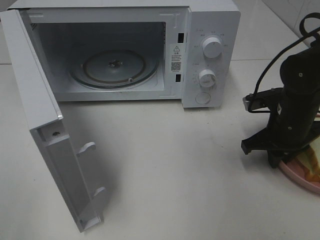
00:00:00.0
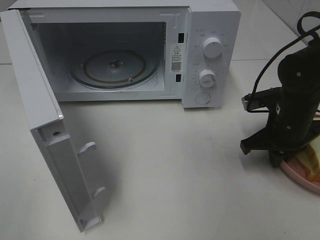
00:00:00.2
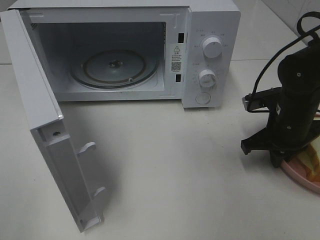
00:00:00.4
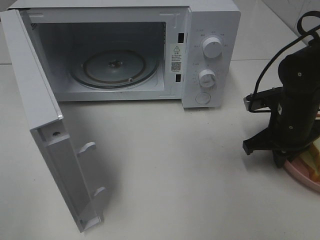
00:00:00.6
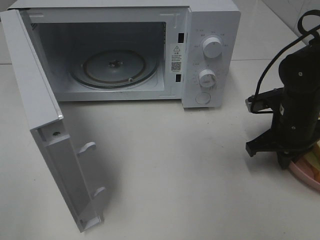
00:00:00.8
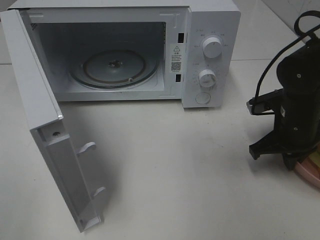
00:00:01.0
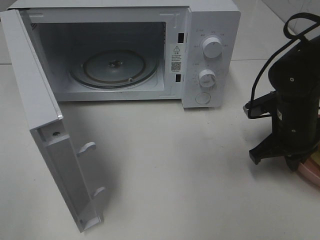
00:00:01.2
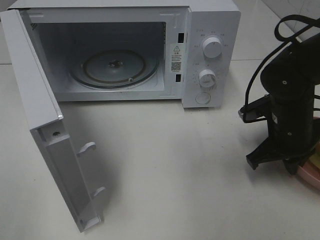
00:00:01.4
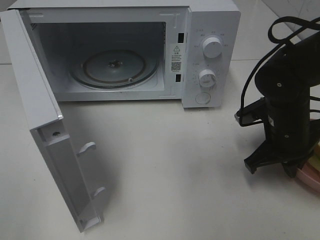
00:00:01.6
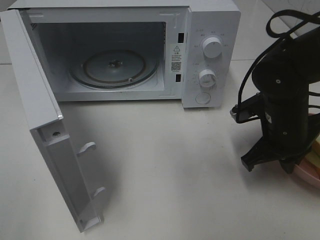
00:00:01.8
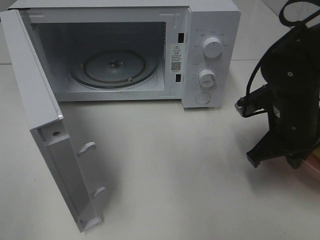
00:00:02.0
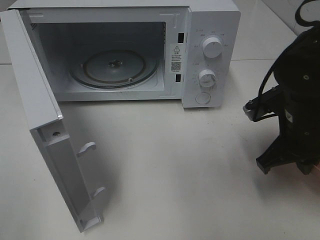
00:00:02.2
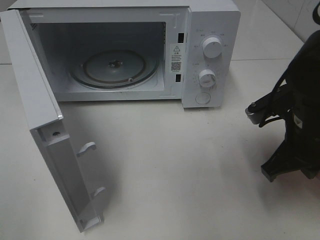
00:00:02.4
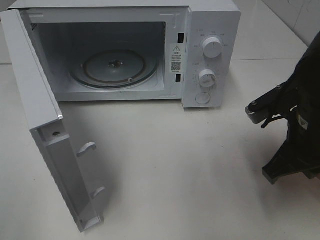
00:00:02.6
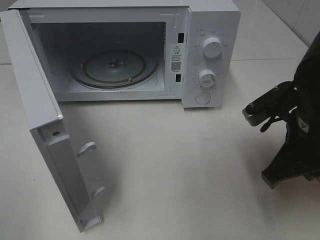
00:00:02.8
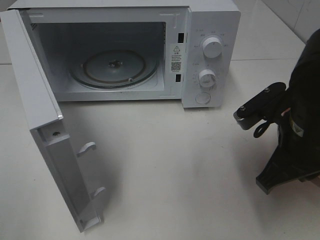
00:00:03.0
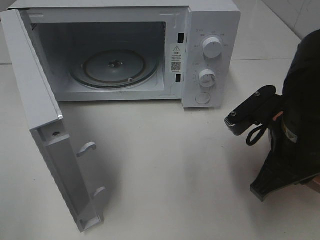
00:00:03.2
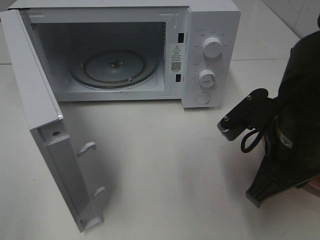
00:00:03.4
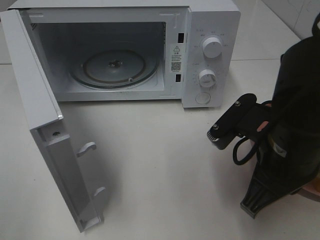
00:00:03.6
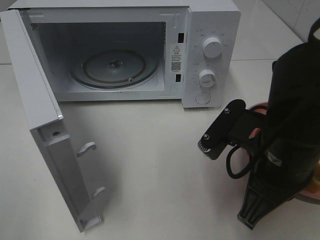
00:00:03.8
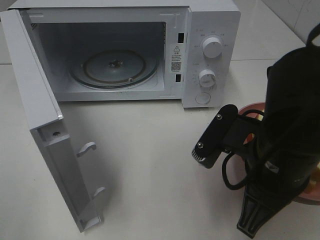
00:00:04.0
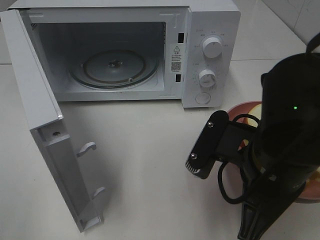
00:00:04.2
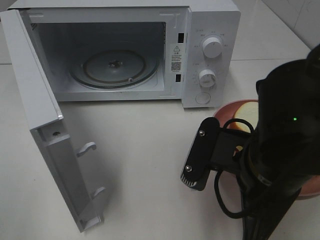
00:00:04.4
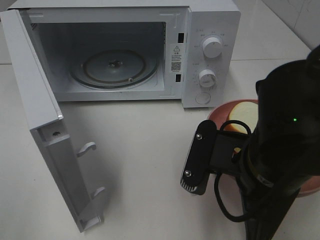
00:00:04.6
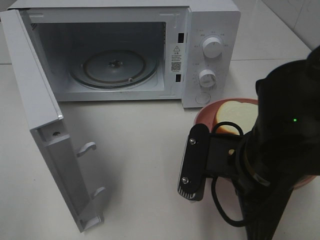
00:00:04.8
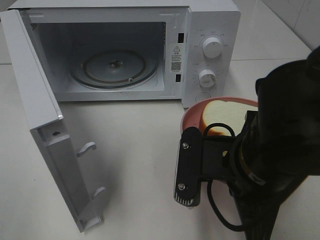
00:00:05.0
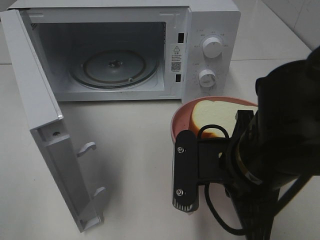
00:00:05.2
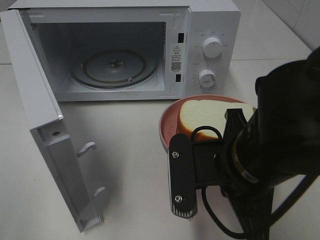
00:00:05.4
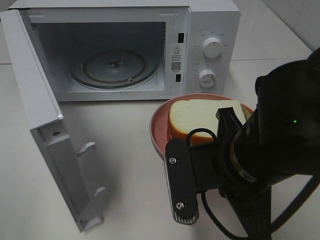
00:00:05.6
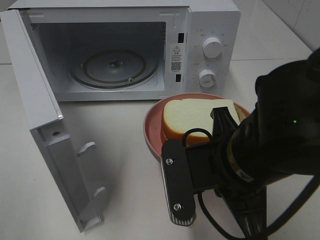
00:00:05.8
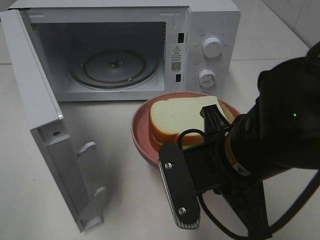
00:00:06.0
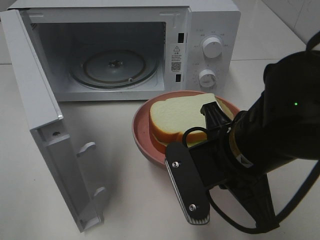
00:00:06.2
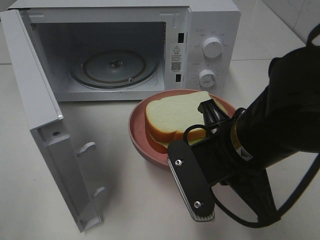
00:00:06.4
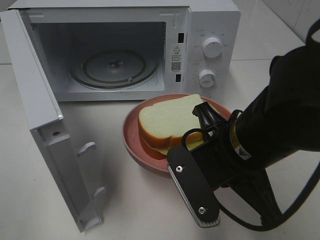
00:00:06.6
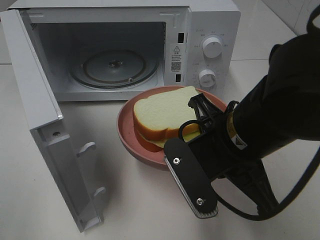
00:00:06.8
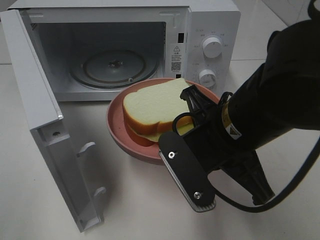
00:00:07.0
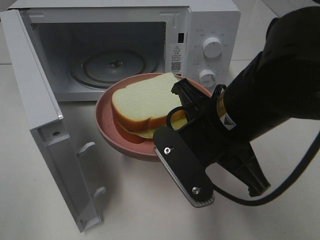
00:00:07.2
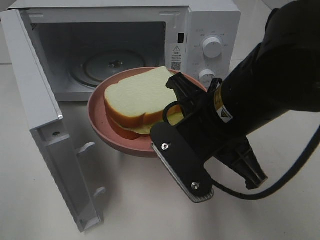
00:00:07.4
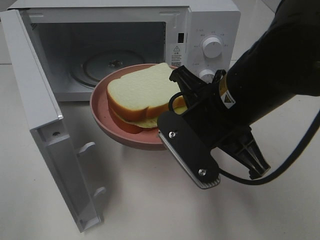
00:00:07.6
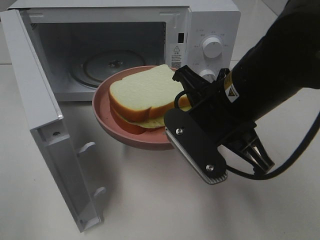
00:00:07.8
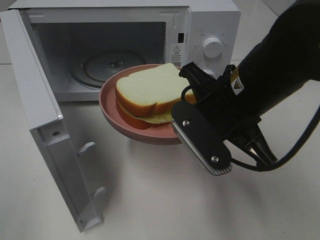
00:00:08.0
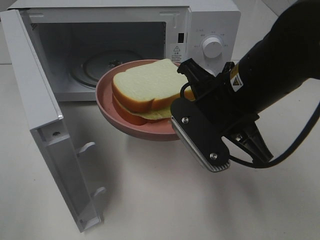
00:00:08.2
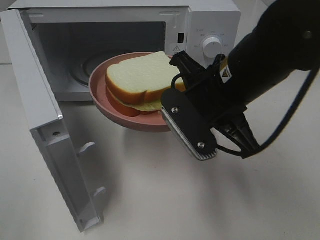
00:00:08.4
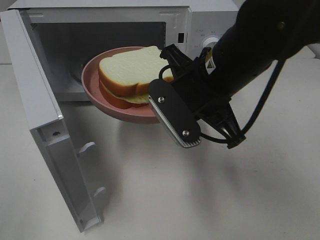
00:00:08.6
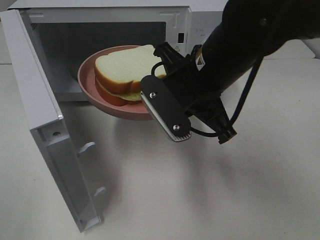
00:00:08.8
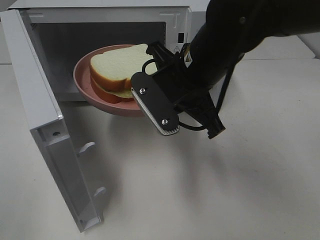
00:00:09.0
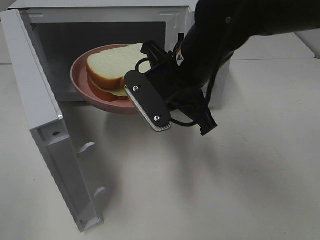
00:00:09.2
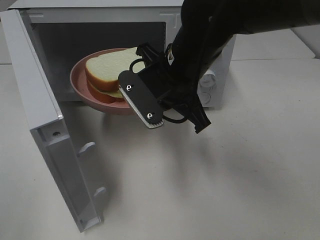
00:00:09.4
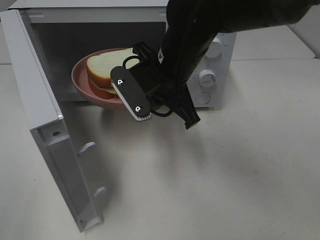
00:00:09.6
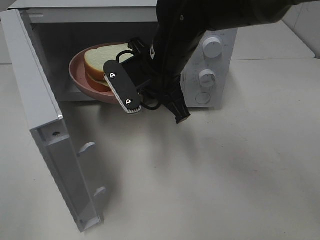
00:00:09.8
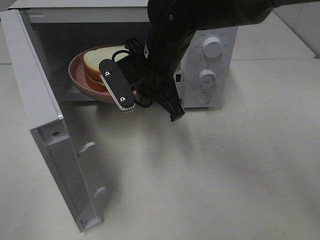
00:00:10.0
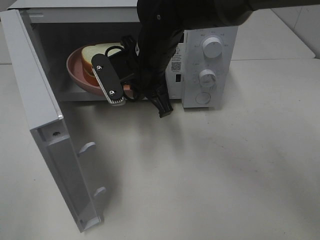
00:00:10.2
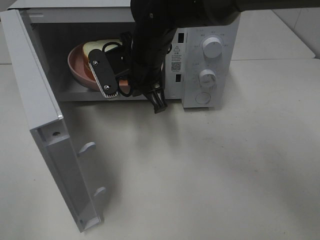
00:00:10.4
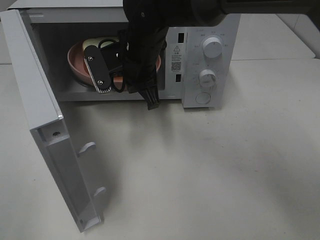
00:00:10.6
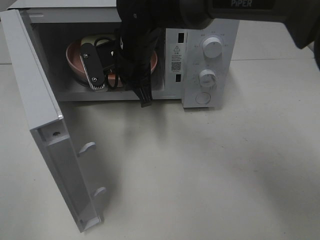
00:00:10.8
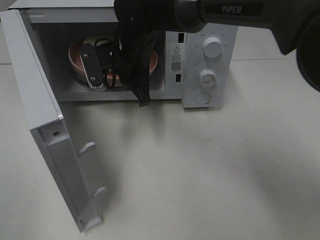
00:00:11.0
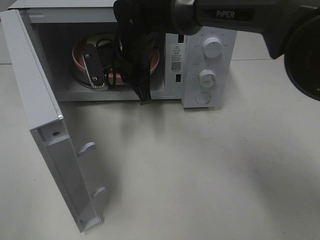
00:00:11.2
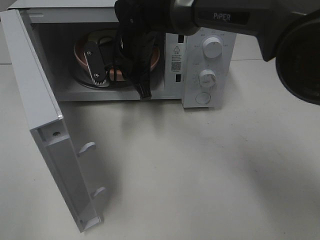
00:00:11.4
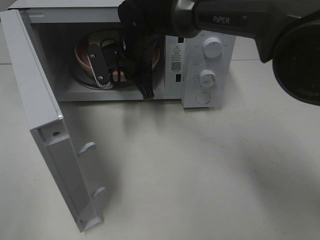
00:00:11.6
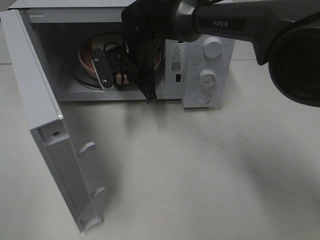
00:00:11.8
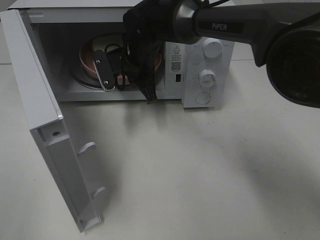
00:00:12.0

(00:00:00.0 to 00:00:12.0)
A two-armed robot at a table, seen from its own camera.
Task of the whole recording: Heat Sandwich.
00:00:00.0 - 00:00:01.6: There are only small adjustments of the grippers.
00:00:01.6 - 00:00:03.0: The right gripper goes some 10 cm backward and upward.
00:00:03.0 - 00:00:04.4: The right gripper heads to the left and backward, covering about 10 cm.
00:00:06.0 - 00:00:07.6: The right gripper ends up some 5 cm from where it was.
00:00:07.6 - 00:00:09.0: The right gripper shifts roughly 5 cm forward.
00:00:09.0 - 00:00:10.4: The right gripper shifts roughly 10 cm forward and to the left.
00:00:10.4 - 00:00:12.0: The right gripper moves forward, approximately 5 cm.

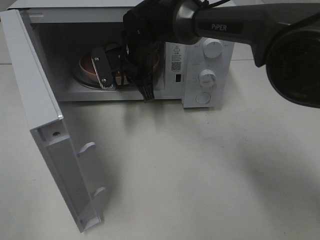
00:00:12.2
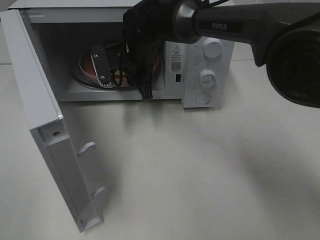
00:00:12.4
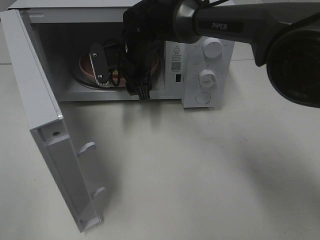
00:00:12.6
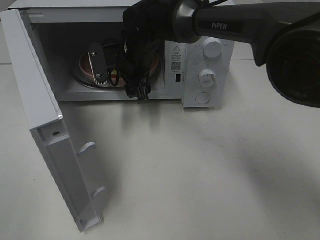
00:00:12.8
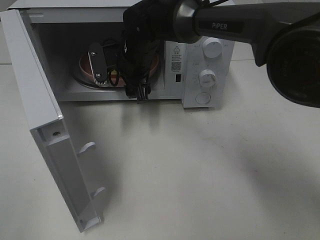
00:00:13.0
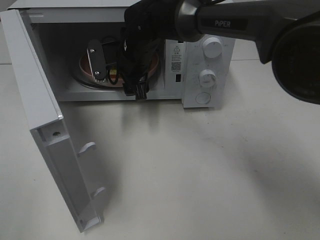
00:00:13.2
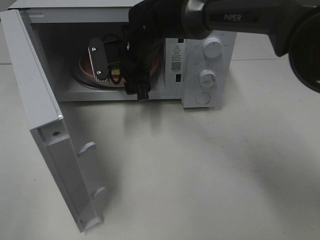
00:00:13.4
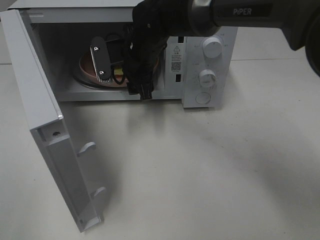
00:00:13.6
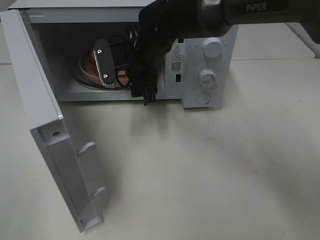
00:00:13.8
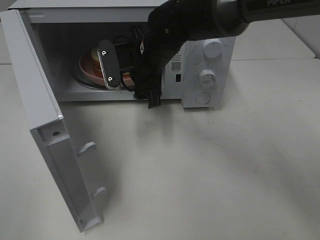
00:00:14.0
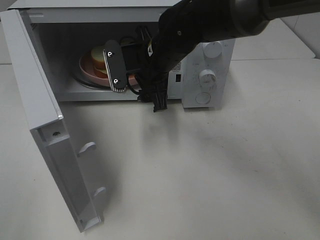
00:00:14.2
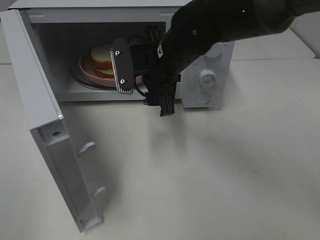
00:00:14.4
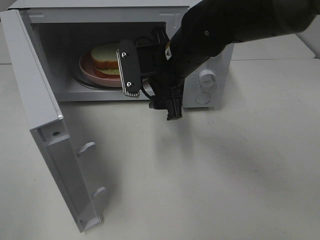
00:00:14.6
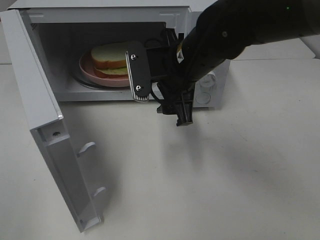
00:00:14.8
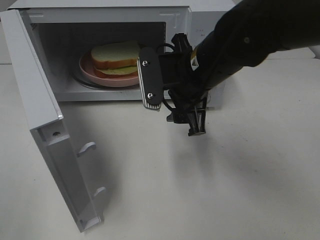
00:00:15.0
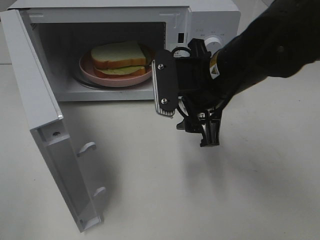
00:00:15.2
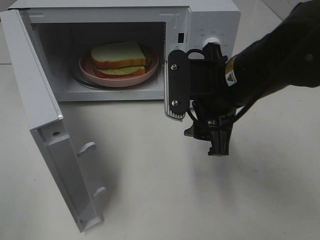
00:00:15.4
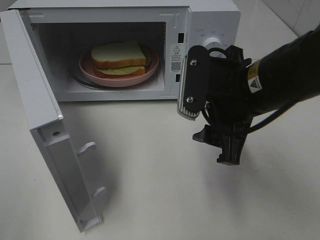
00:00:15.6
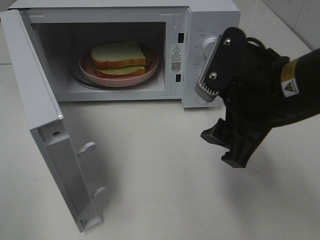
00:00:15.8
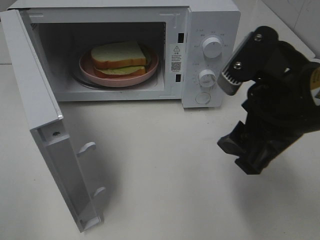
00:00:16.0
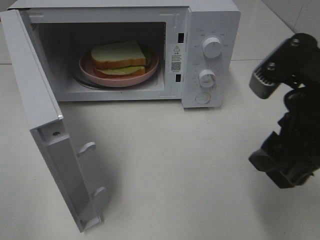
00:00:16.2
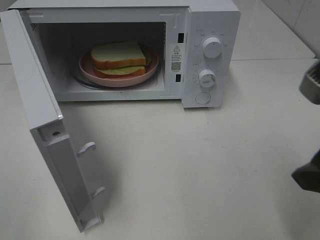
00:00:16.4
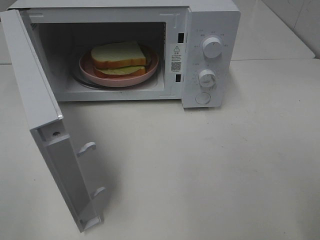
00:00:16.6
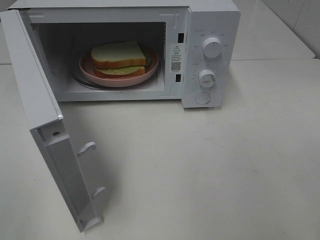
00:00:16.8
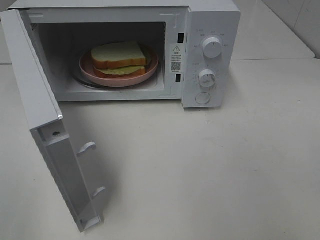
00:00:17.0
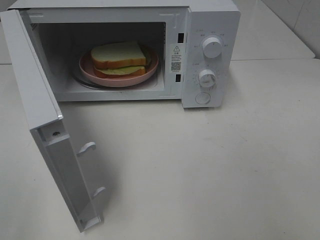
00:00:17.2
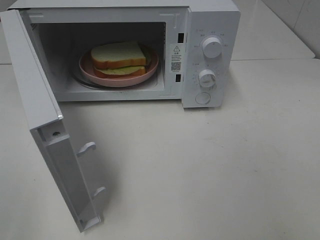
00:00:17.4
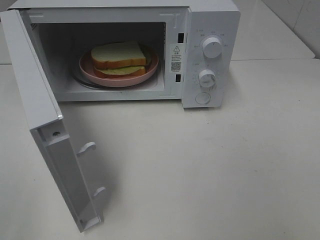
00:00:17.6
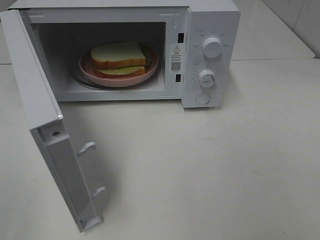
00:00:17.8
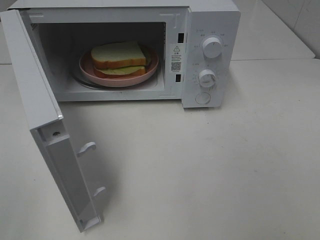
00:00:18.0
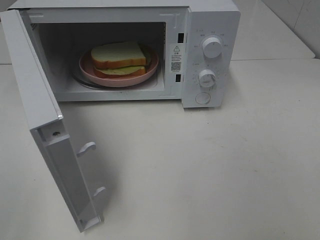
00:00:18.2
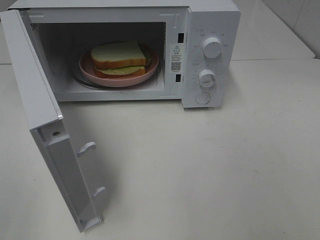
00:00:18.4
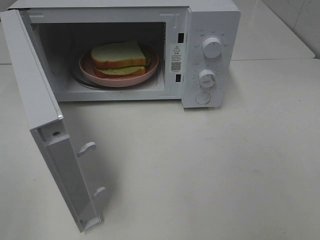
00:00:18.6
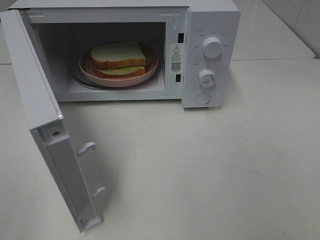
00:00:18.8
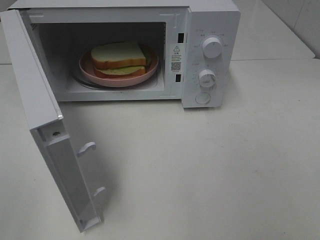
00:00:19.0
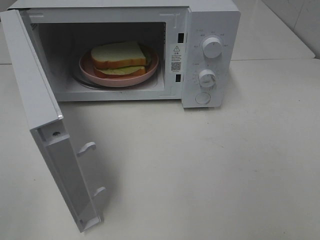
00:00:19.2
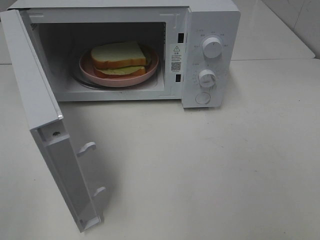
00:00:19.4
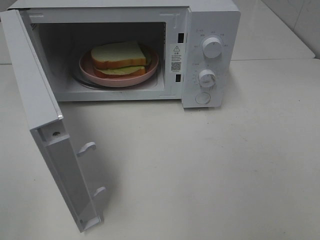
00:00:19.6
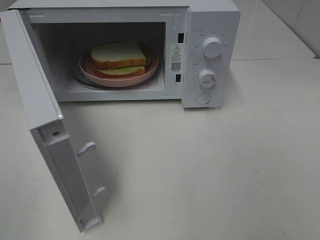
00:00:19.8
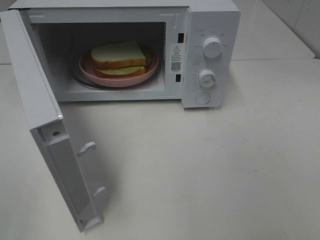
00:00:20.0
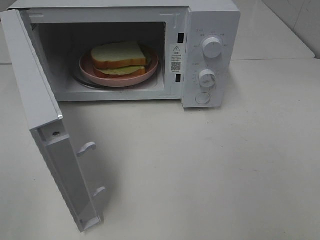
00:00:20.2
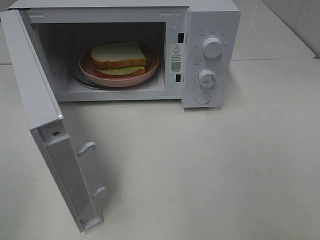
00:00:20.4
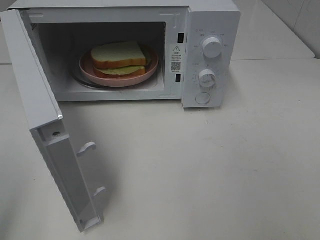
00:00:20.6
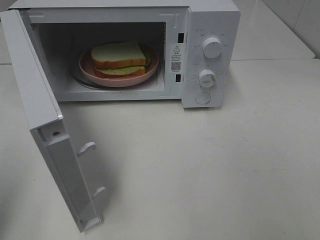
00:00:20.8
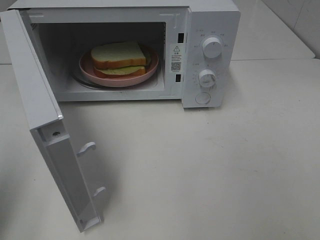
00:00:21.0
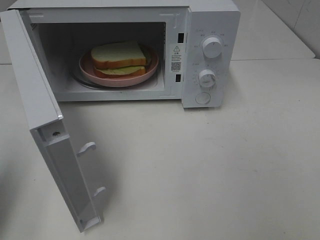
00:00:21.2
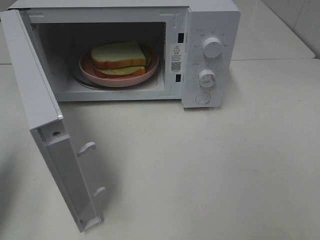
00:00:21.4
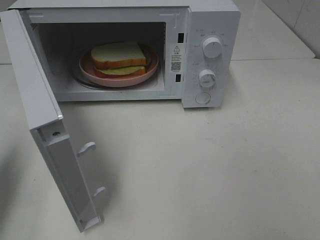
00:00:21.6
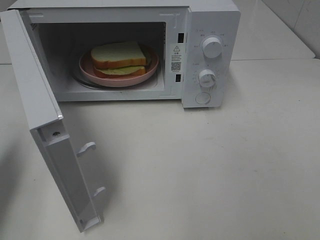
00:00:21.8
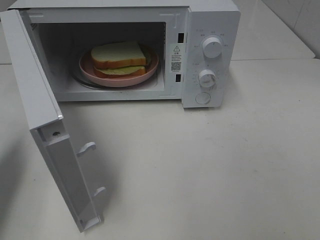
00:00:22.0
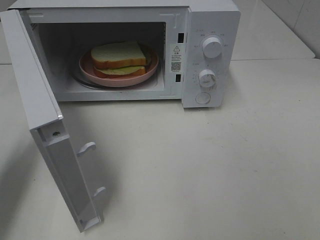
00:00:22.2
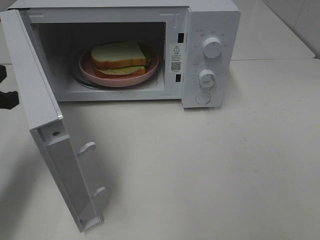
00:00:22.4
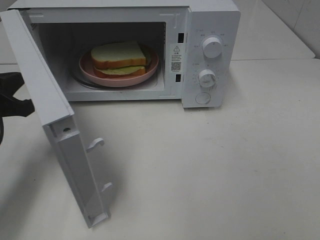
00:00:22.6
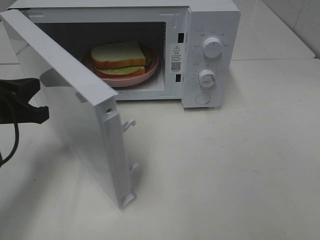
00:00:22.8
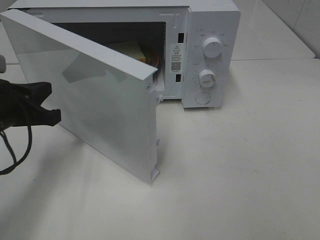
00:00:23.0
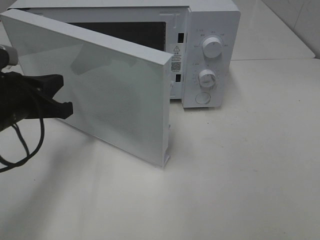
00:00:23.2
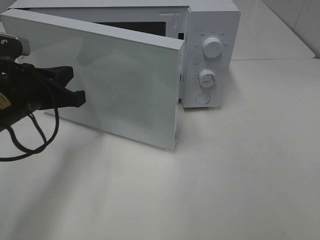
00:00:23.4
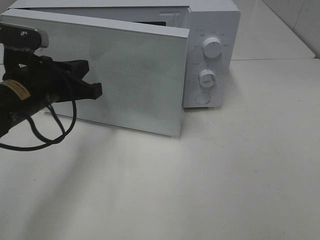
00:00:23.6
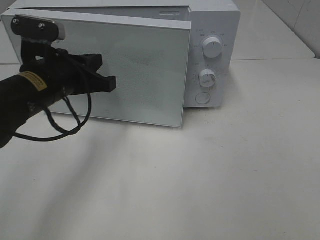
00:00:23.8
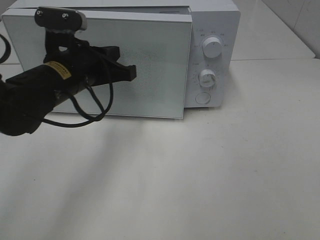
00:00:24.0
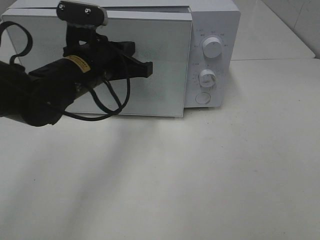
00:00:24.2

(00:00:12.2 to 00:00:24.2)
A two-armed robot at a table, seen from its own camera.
Task of the whole recording: Heat Sandwich.
00:00:12.2 - 00:00:13.8: The right gripper opens up.
00:00:13.8 - 00:00:15.2: The right gripper is displaced backward and to the right by approximately 15 cm.
00:00:15.2 - 00:00:16.6: The right gripper moves backward, to the right and upward, some 20 cm.
00:00:18.2 - 00:00:19.8: Both grippers stay about where they are.
00:00:19.8 - 00:00:21.2: The left gripper heads forward, covering about 15 cm, and closes up.
00:00:21.2 - 00:00:22.6: The left gripper moves forward, downward and to the right, approximately 15 cm.
00:00:22.6 - 00:00:24.2: The left gripper travels to the right and forward by approximately 20 cm.
